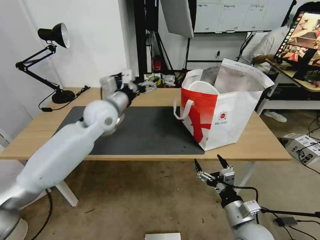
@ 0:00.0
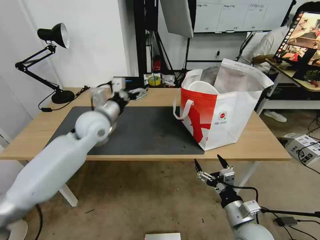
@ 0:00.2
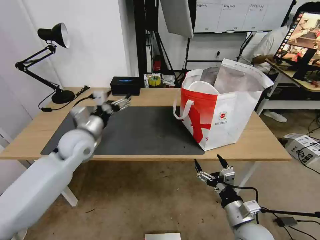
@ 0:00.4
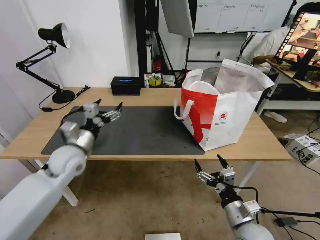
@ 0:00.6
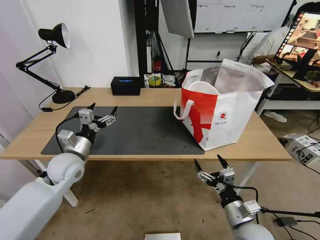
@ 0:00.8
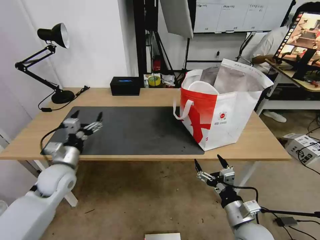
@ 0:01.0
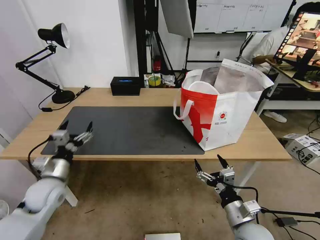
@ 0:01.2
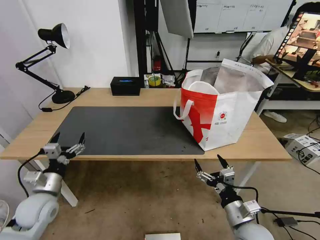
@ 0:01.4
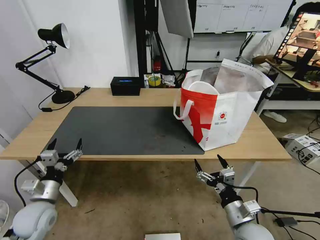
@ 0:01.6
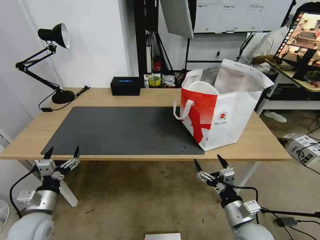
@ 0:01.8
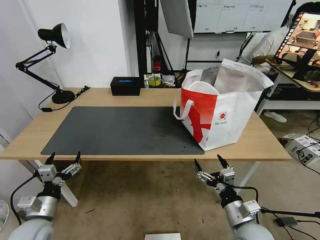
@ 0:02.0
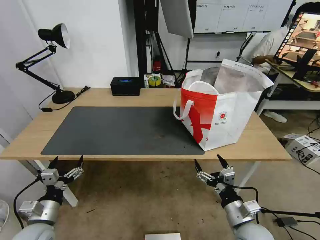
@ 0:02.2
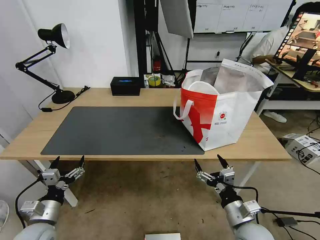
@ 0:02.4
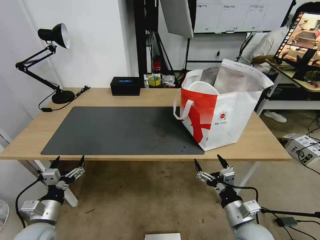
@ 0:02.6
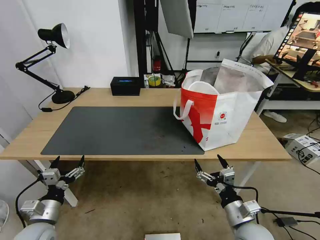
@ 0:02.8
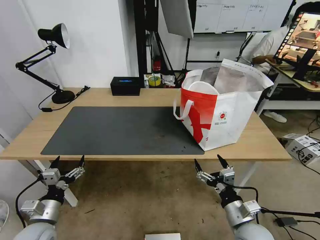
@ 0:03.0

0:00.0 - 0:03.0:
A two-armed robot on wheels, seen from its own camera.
Task of the whole recording: Pick up the trash from the table and place it into the takeout bag.
0:00.0 - 0:01.6: The left gripper moves backward, downward and to the left, roughly 35 cm.
0:01.6 - 0:03.0: The left gripper moves about 5 cm.
